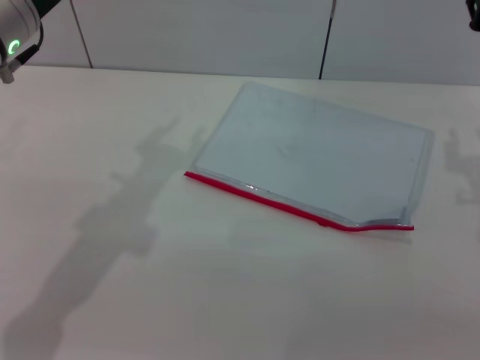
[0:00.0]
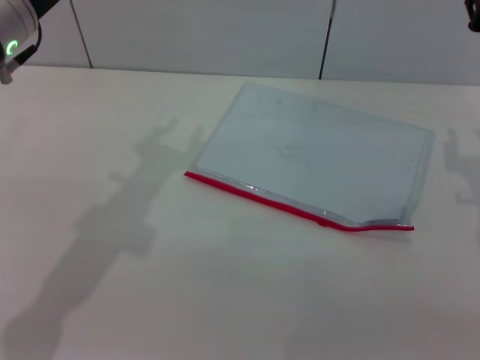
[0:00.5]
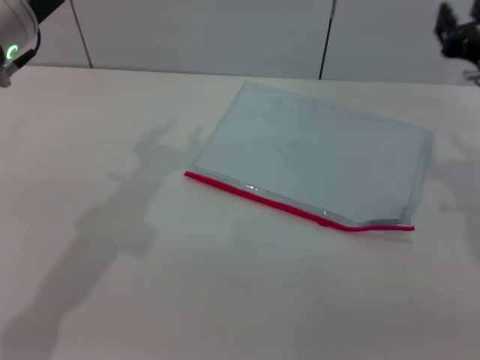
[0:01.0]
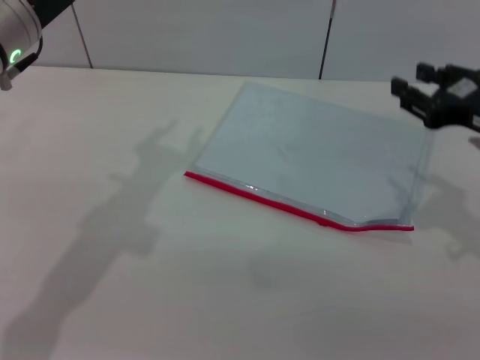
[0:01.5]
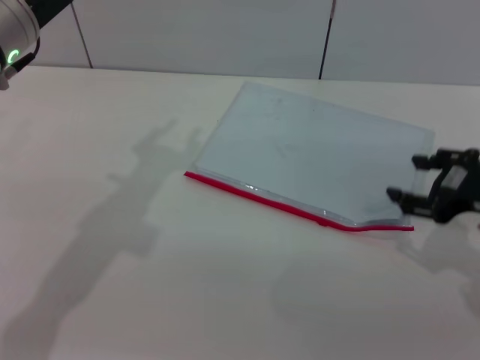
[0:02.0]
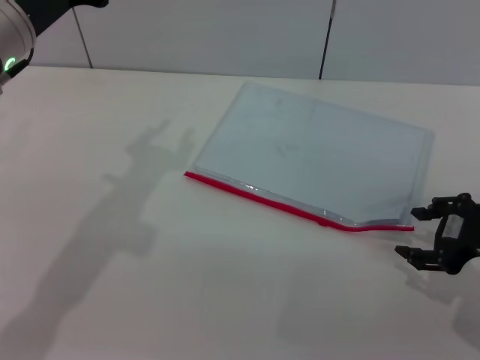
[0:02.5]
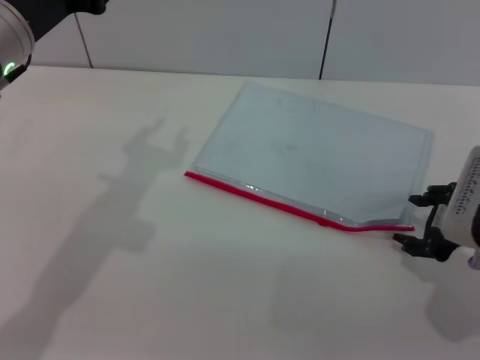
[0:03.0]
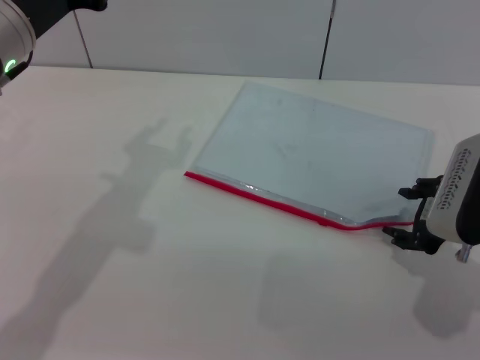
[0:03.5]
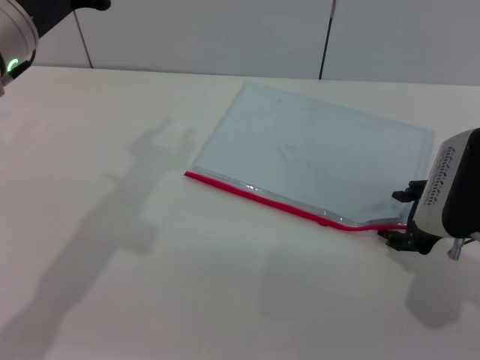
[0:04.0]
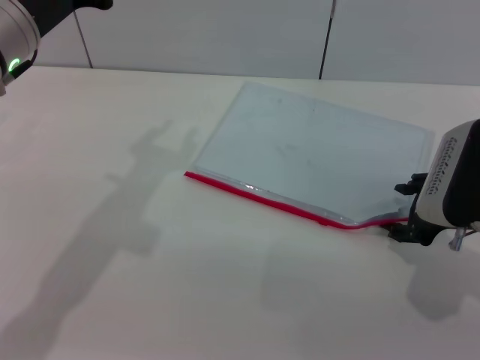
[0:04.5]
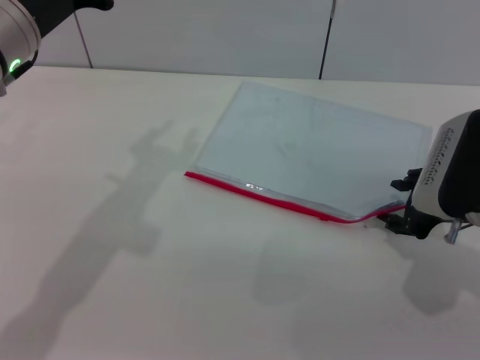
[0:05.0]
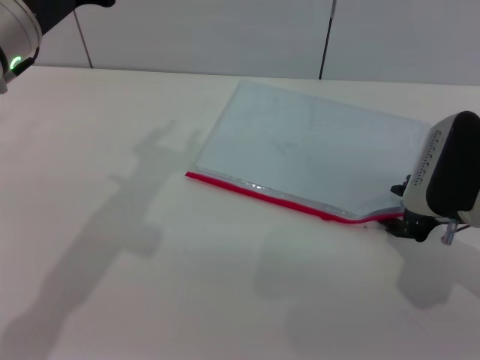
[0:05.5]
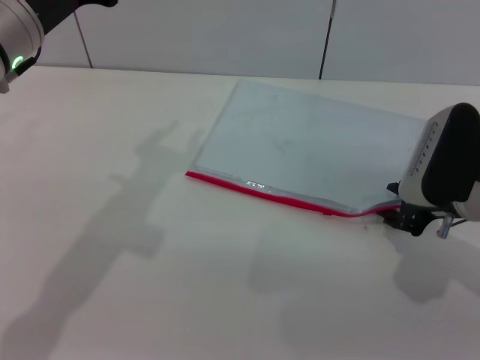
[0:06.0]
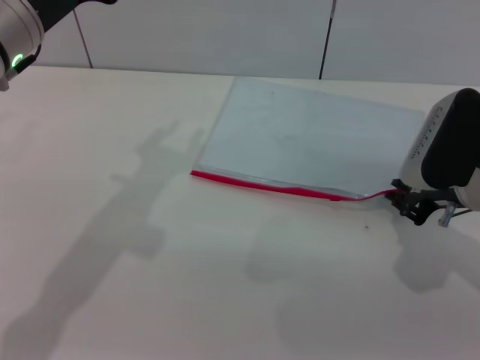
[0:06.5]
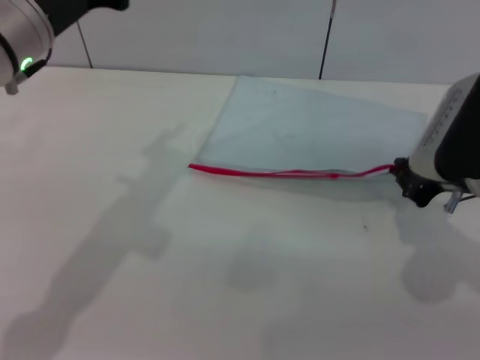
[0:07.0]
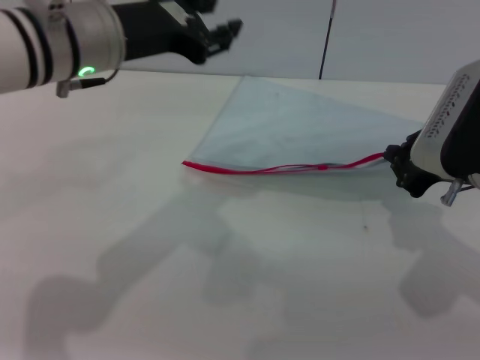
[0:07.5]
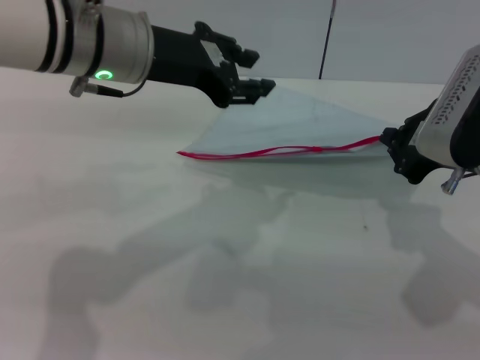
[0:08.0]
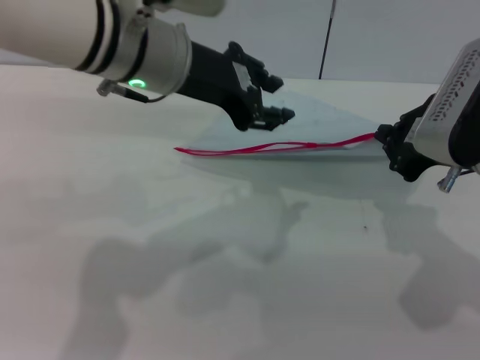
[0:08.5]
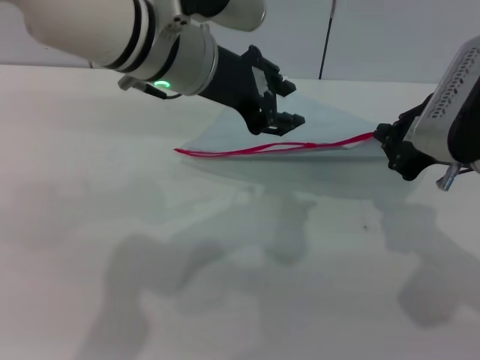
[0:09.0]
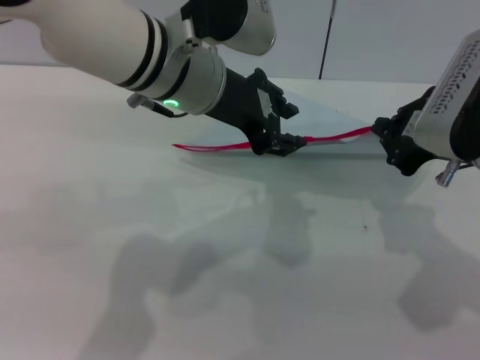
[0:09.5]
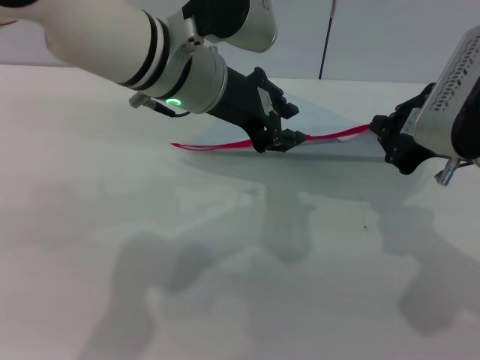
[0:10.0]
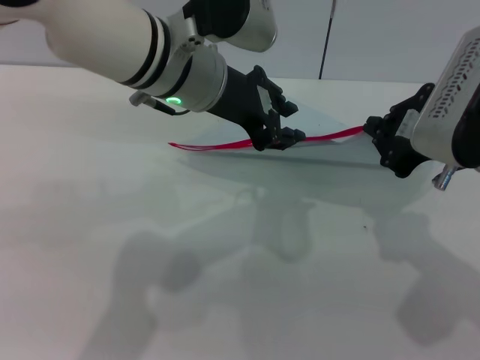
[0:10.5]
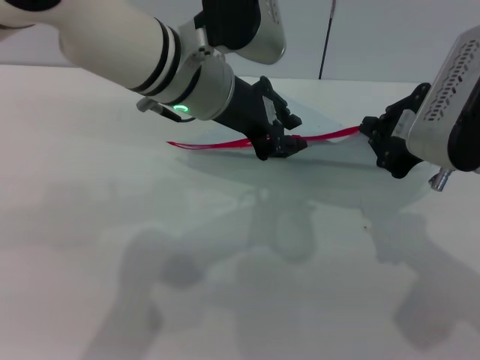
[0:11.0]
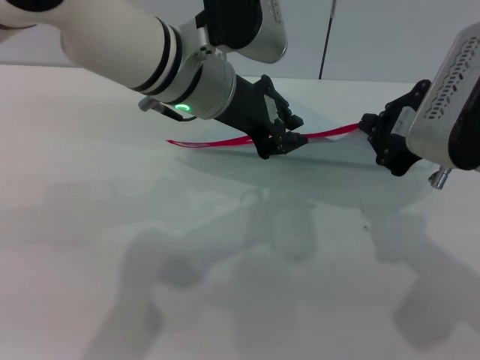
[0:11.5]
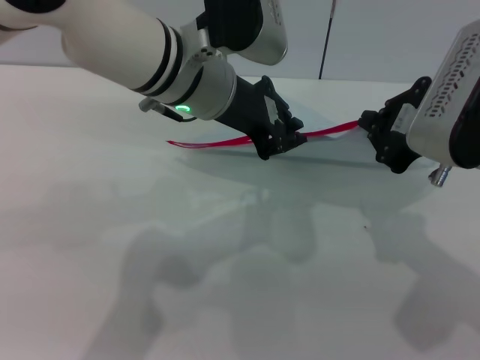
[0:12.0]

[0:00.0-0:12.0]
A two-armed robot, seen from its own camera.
Step, 0:00.0 to 0:07.0: Pick up the transparent plastic bag with the right gripper.
0:00.0 to 0:02.0: The right gripper travels backward by about 5 cm.
0:02.0 to 0:04.0: The right gripper ends up some 5 cm from where it was.
0:04.0 to 0:06.0: The grippers stay close to where they were, moving slightly.
0:06.0 to 0:08.0: The right gripper shifts roughly 10 cm upward, and closes its fingers. Meanwhile the left gripper moves to the right, approximately 10 cm.
0:08.0 to 0:10.0: The left gripper heads to the right, covering roughly 5 cm.
0:10.0 to 0:12.0: The left gripper closes its fingers.

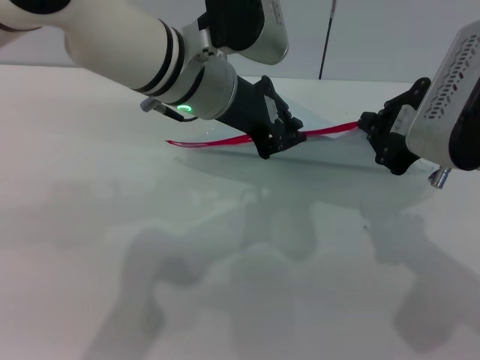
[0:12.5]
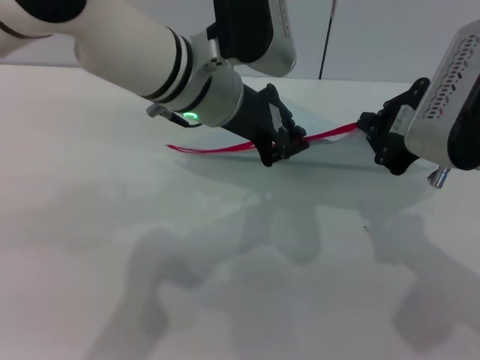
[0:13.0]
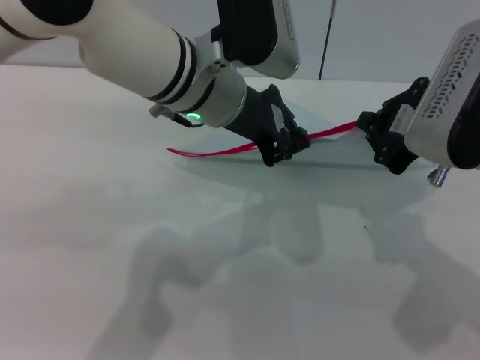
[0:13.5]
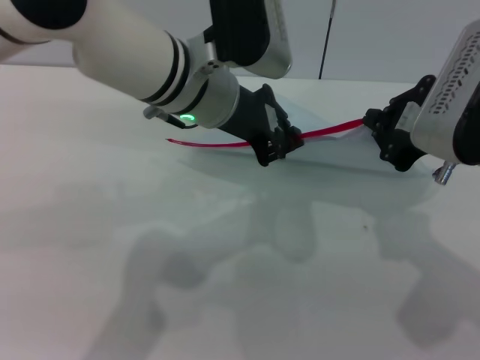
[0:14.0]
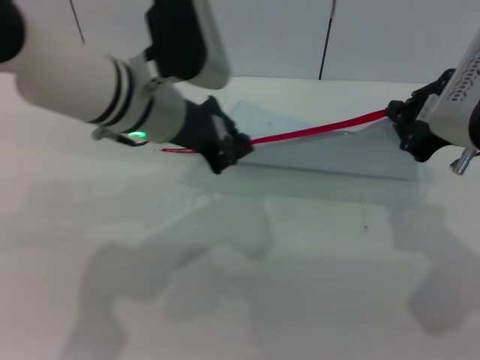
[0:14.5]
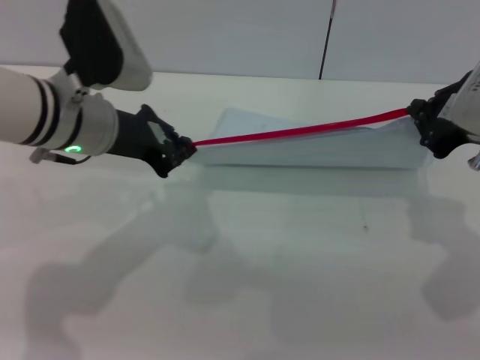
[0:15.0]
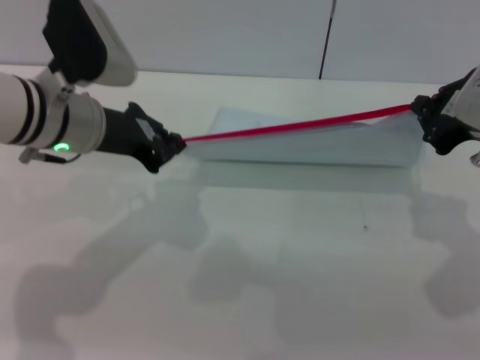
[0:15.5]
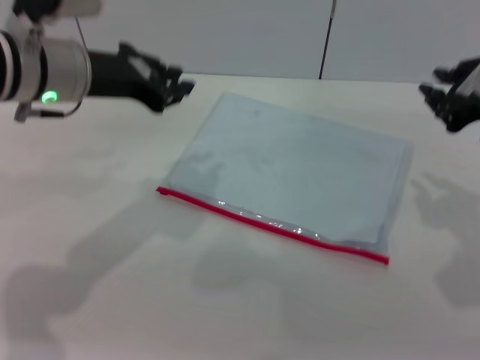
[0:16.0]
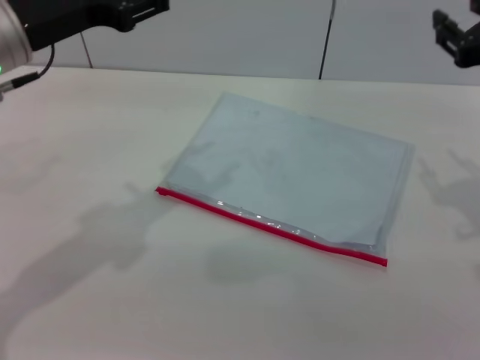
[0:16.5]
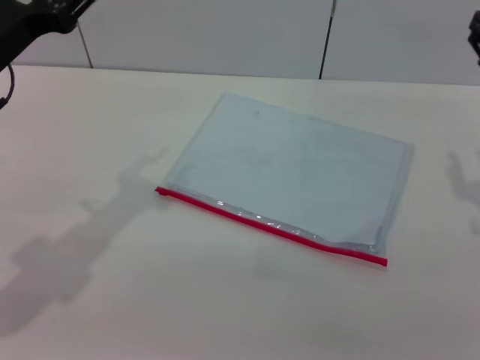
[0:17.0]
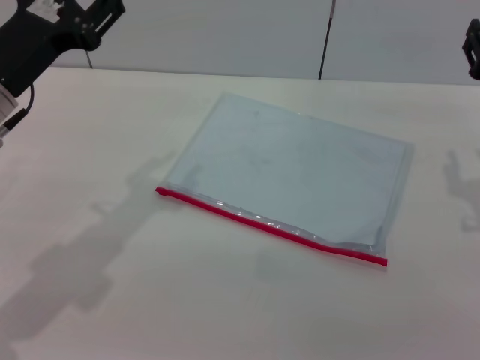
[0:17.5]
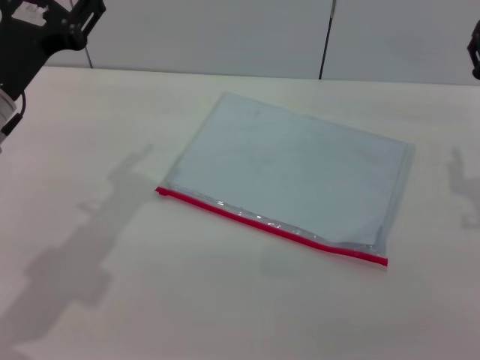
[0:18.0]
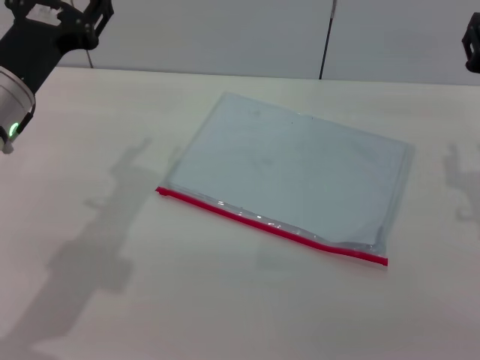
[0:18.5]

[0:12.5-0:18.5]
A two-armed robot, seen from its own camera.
Step, 0:12.5 to 0:15.5: Pulling up the zipper on the transparent plastic bag with the left gripper to close it.
Step, 0:16.5 to 0:17.0: Place the transparent plastic bag.
0:12.5 to 0:14.5: The left gripper ends up roughly 5 cm from where it was.
0:14.5 to 0:16.5: The left gripper is displaced to the left by about 10 cm, and opens its fingers. The right gripper changes place by approximately 5 cm, and opens its fingers.
0:16.5 to 0:18.5: The two grippers go some 5 cm downward.
